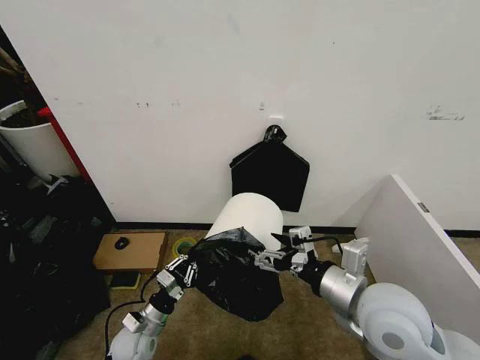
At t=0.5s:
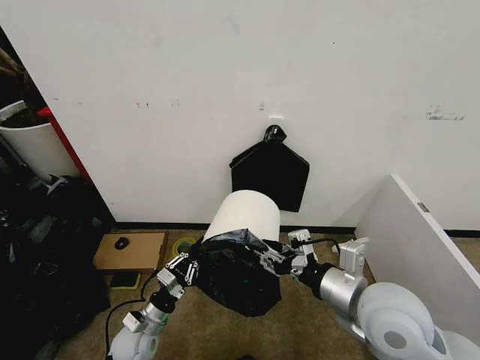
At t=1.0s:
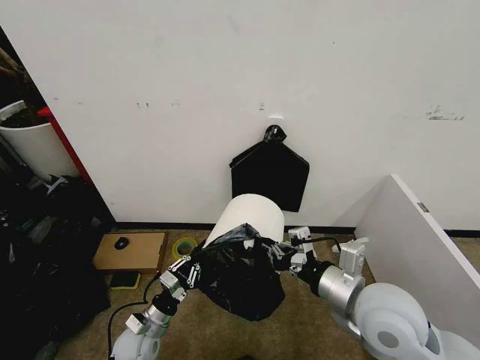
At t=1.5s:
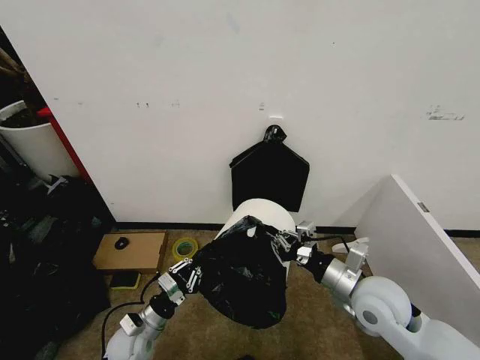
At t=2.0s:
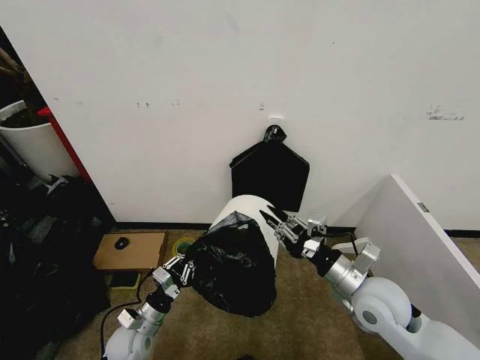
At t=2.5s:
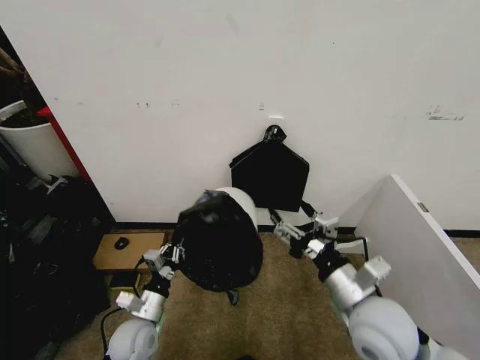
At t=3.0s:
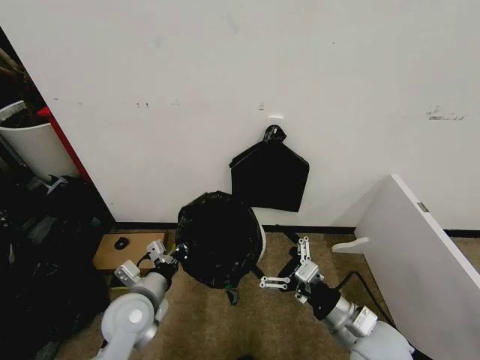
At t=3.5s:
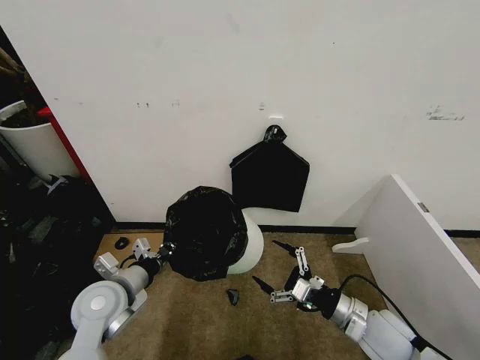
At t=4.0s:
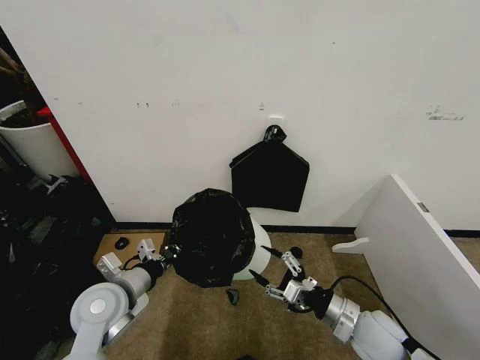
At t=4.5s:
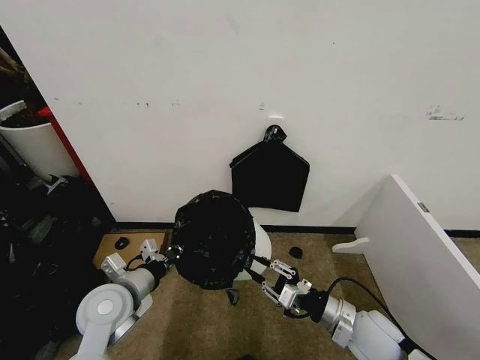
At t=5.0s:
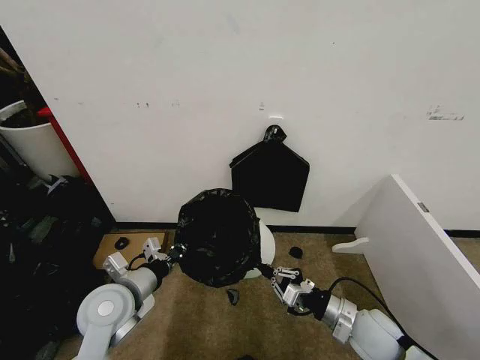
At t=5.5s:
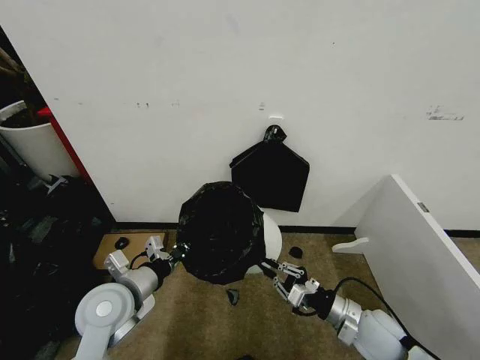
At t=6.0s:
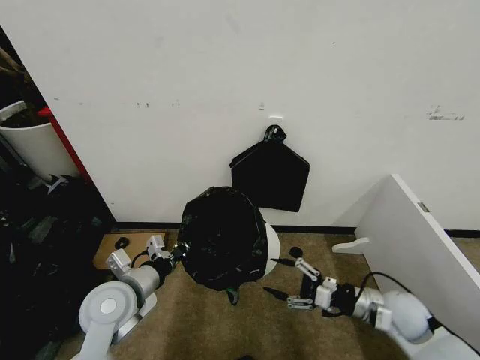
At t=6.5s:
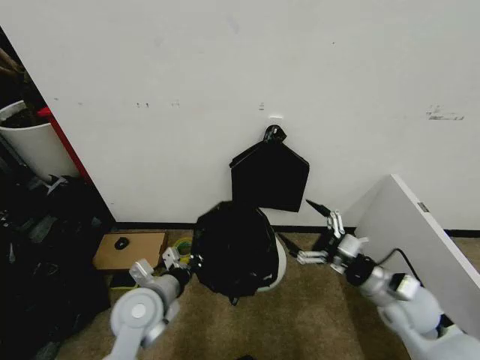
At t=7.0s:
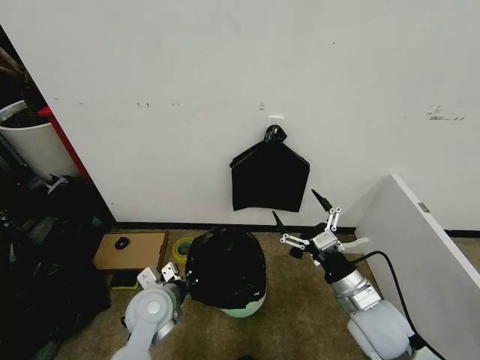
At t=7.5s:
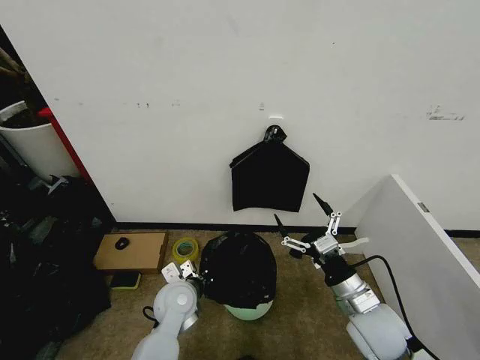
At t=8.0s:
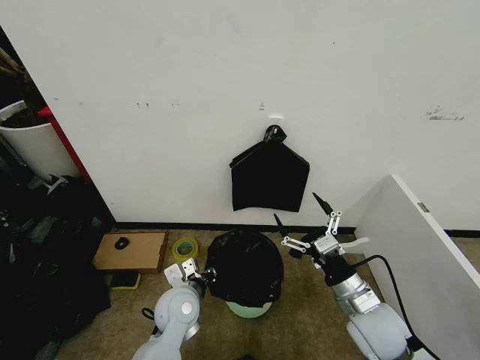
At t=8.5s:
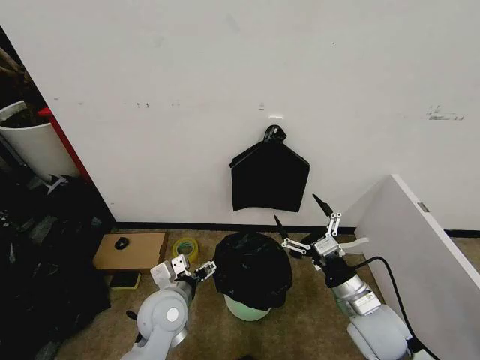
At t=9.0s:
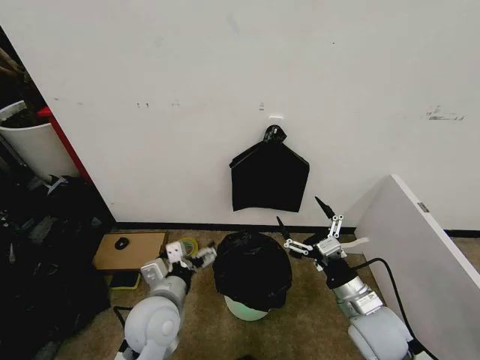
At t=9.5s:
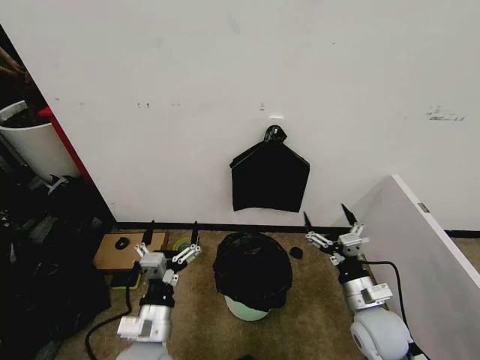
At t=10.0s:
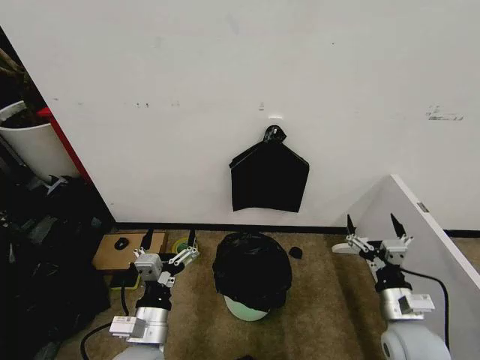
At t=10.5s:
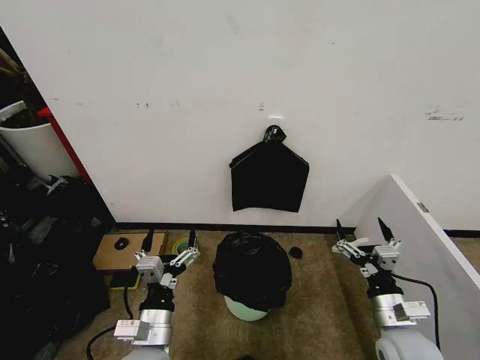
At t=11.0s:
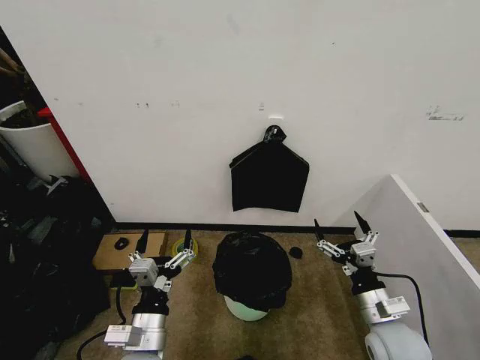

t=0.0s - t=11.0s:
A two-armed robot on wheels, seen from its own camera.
Task of the whole recording: Place the garbage bag over the trash bin.
t=0.0s - t=2.0s: The right gripper moves downward, approximately 10 cm, and closes its fingers.
t=2.0s - t=3.5s: The left gripper goes roughly 20 cm upward; the right gripper heads downward, covering some 10 cm, and opens up.
t=3.5s - t=5.5s: The right gripper closes.
t=5.5s - t=7.5s: The left gripper shifts some 15 cm downward and to the right; the right gripper heads upward, covering about 5 cm, reaches some 5 cm to the right, then returns, and opens up.
t=7.5s - t=9.0s: The left gripper shifts some 10 cm upward and backward, and opens its fingers.
t=9.0s - t=11.0s: The left gripper heads backward, covering some 10 cm.
